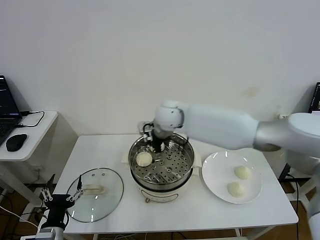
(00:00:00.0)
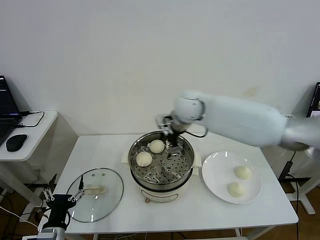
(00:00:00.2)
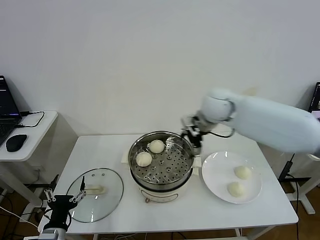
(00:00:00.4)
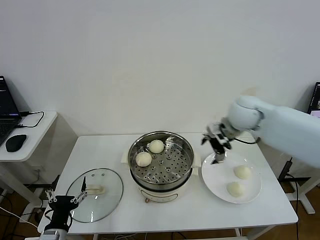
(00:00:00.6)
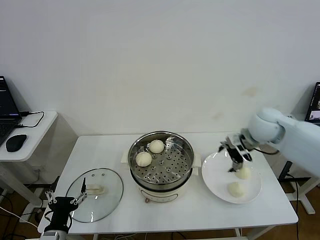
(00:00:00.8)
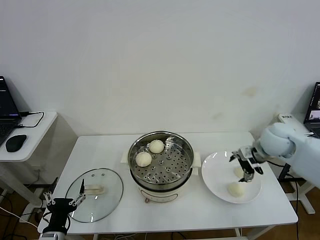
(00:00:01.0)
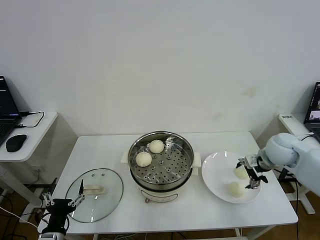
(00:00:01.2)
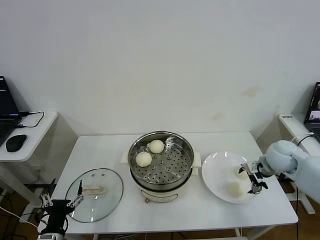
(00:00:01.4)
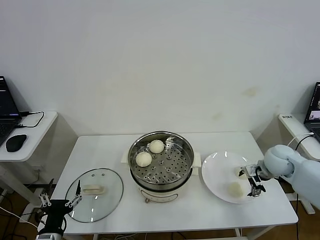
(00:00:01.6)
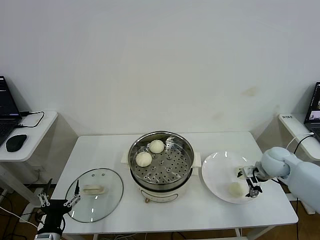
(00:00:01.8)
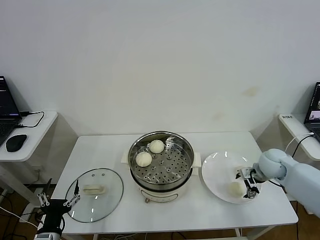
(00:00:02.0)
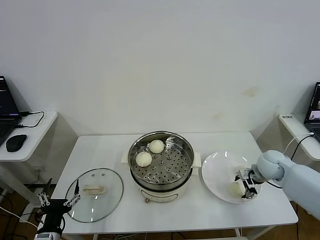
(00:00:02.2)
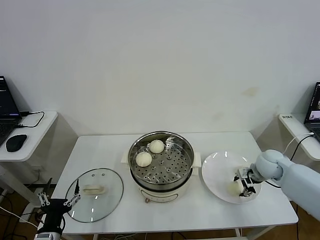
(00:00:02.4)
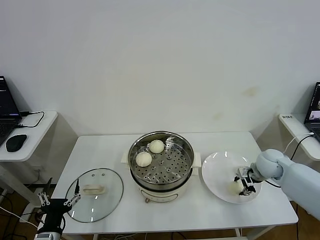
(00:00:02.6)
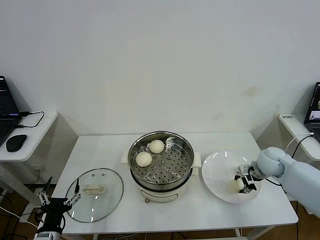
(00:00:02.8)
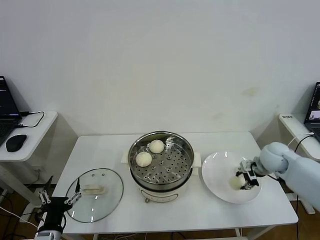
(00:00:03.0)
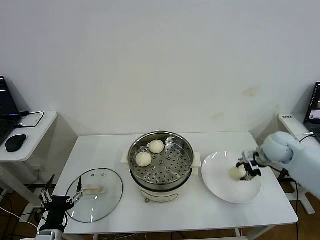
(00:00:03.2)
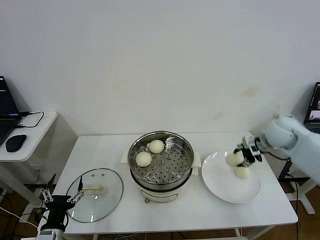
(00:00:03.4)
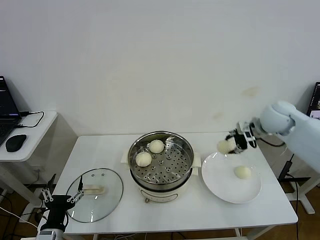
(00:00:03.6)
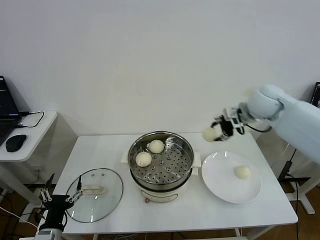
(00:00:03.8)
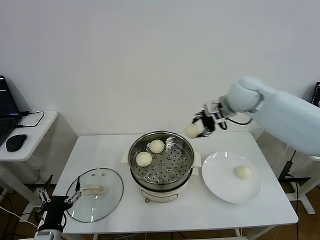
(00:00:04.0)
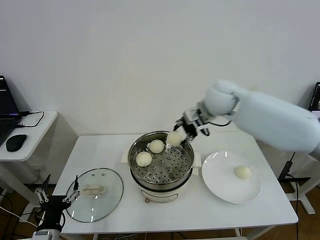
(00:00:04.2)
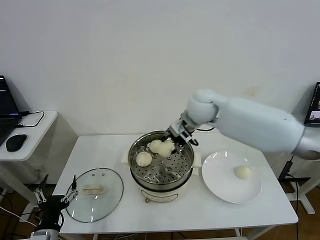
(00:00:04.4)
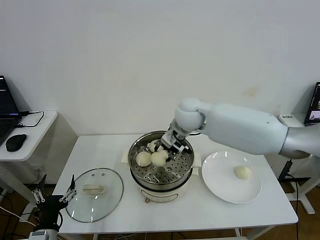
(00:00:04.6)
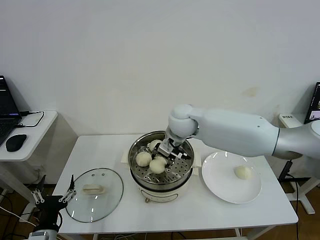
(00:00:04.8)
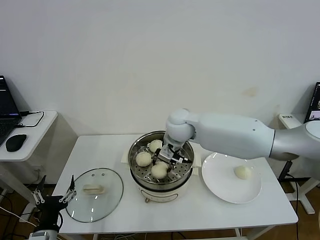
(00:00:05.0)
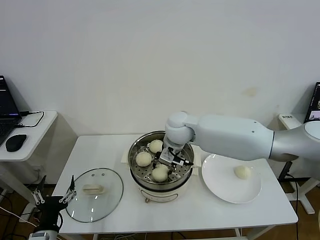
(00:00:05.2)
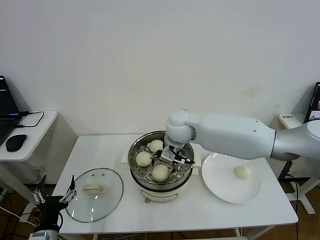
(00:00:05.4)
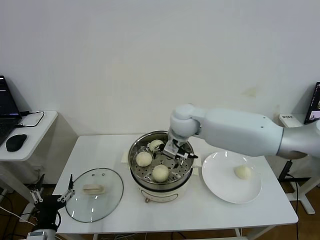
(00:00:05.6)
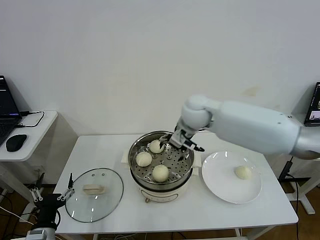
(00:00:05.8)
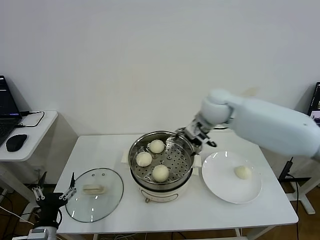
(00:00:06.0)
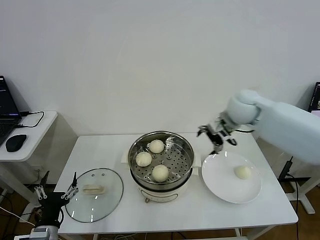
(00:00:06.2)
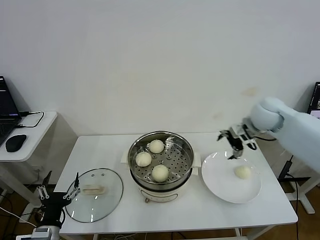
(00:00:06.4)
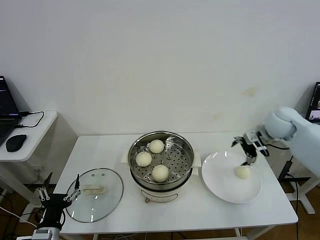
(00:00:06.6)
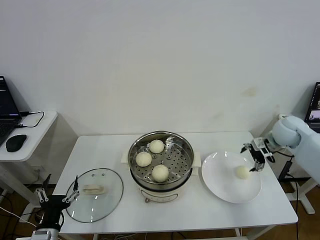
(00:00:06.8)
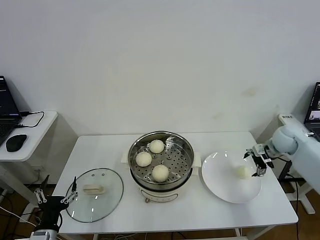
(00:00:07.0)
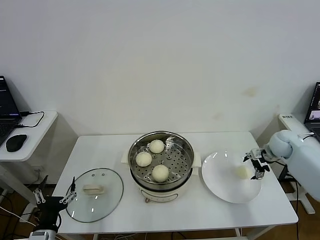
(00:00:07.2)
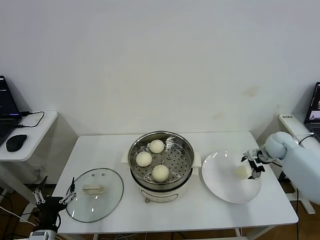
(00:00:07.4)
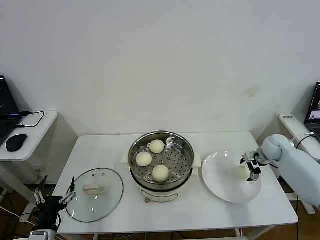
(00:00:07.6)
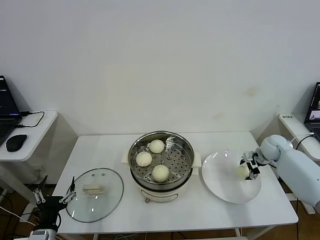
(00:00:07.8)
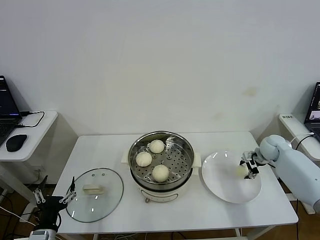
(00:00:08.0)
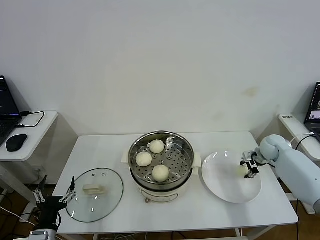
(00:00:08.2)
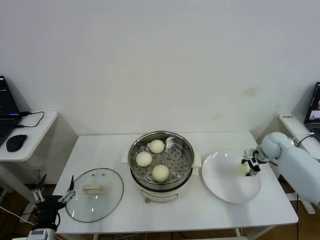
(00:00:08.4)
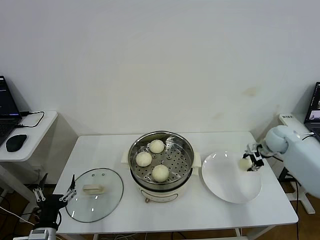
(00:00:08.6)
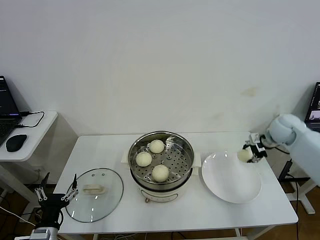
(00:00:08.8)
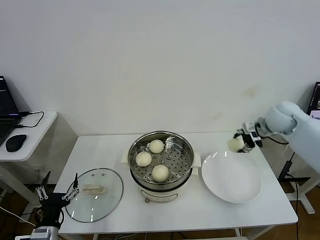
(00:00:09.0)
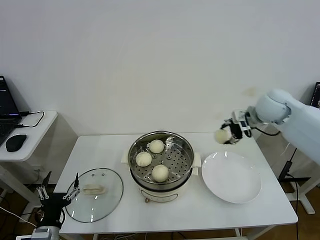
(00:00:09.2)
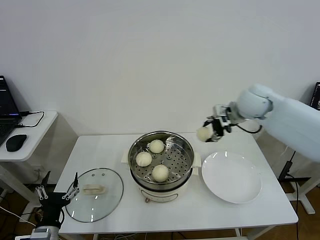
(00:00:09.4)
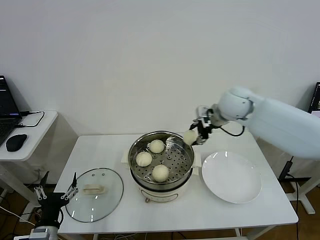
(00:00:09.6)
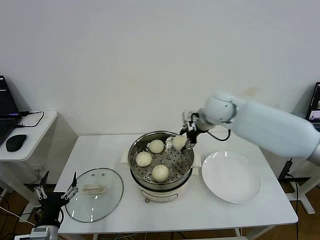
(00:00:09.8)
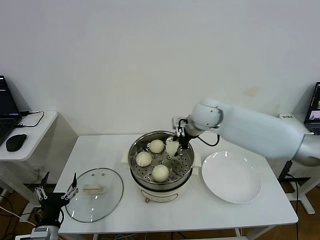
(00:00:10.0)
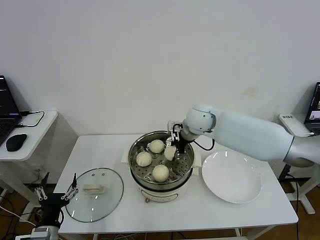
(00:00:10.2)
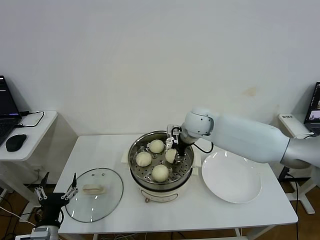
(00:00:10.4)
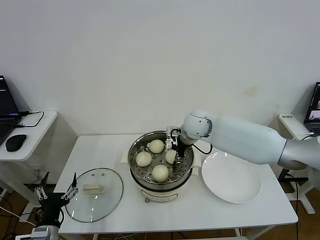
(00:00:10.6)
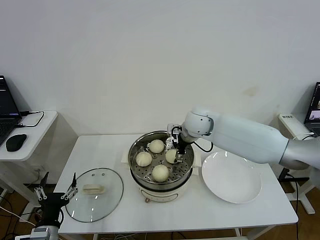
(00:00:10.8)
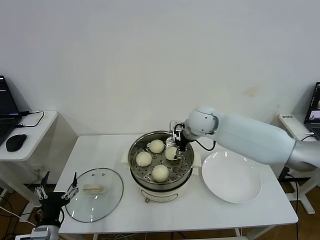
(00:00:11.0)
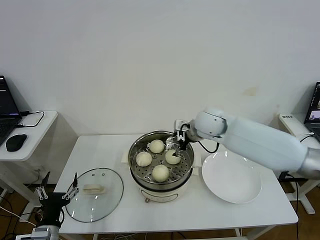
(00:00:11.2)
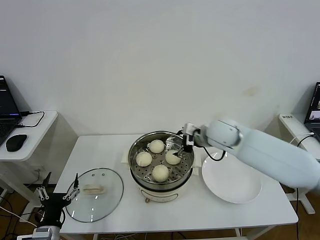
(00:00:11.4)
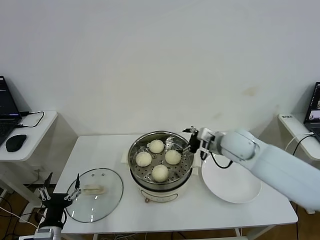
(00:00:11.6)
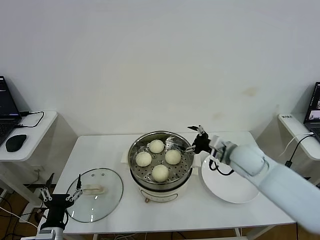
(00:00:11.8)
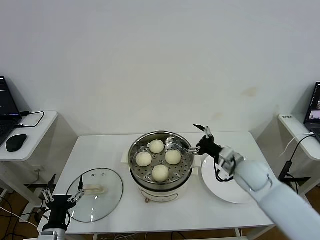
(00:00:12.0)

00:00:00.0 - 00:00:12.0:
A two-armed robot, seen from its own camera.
Step, 00:00:00.0 - 00:00:02.6: Grasp the baozi in the plate with right gripper.
Step, 00:00:02.8 - 00:00:05.2: Place the baozi on the steamer with right gripper.
Step, 00:00:05.6 - 00:00:08.2: Grasp the baozi in the plate with right gripper.
Step, 00:00:08.4 - 00:00:10.6: Place the baozi on the steamer with right gripper.
00:00:00.0 - 00:00:01.6: The right gripper travels to the right and downward by some 40 cm.
00:00:01.6 - 00:00:03.0: The right gripper closes its fingers.
00:00:03.0 - 00:00:04.4: The right gripper shifts roughly 30 cm to the left and upward.
00:00:04.4 - 00:00:06.0: The right gripper moves to the right, roughly 5 cm, and opens up.
00:00:06.0 - 00:00:07.6: The right gripper shifts approximately 35 cm to the right and downward.
00:00:07.6 - 00:00:09.0: The right gripper is displaced upward by some 15 cm, and closes up.
00:00:09.0 - 00:00:10.4: The right gripper is displaced to the left by about 25 cm.
00:00:10.4 - 00:00:12.0: The right gripper heads to the right, backward and downward, covering some 25 cm, and opens up.

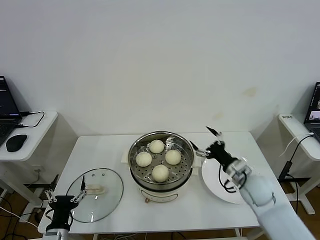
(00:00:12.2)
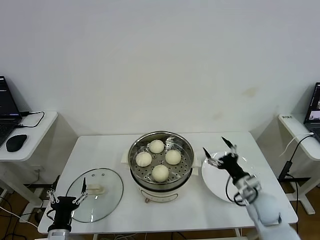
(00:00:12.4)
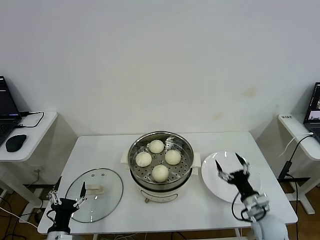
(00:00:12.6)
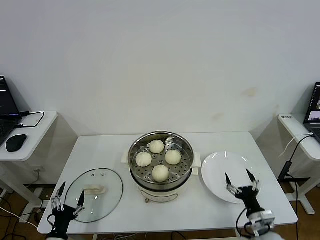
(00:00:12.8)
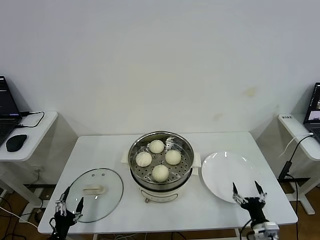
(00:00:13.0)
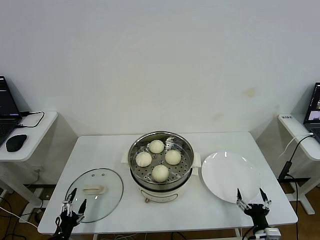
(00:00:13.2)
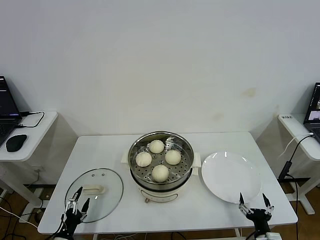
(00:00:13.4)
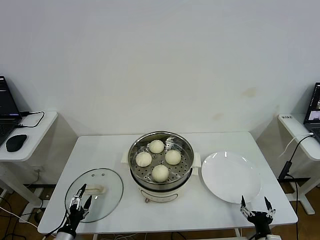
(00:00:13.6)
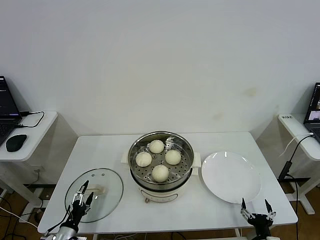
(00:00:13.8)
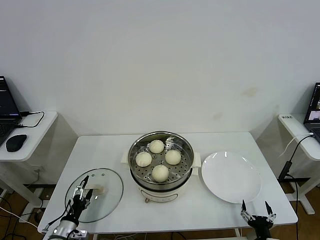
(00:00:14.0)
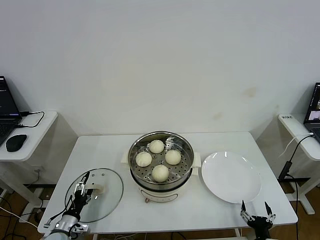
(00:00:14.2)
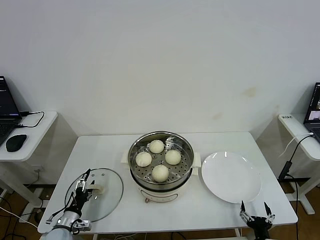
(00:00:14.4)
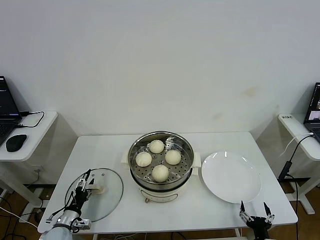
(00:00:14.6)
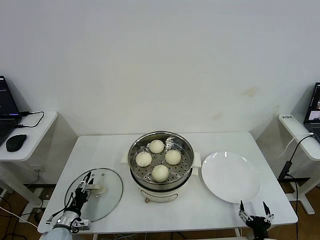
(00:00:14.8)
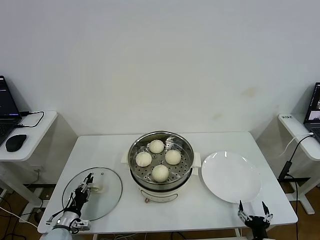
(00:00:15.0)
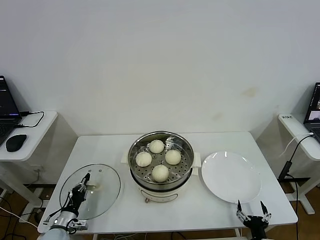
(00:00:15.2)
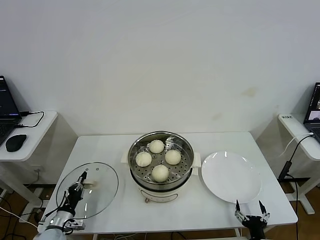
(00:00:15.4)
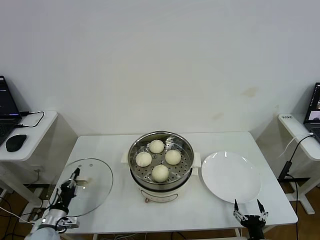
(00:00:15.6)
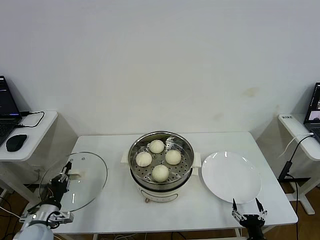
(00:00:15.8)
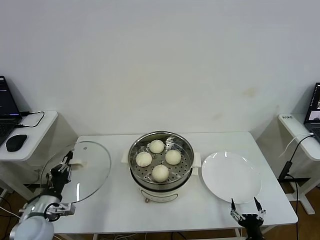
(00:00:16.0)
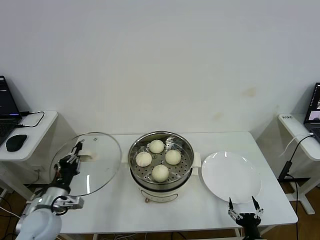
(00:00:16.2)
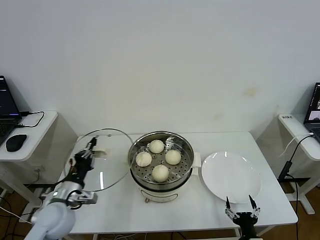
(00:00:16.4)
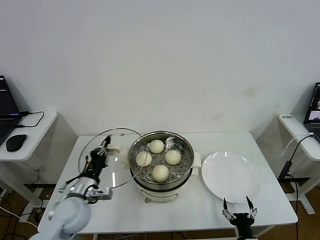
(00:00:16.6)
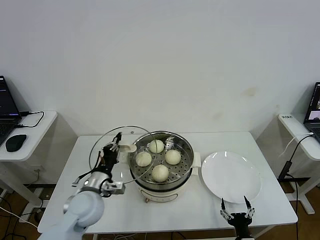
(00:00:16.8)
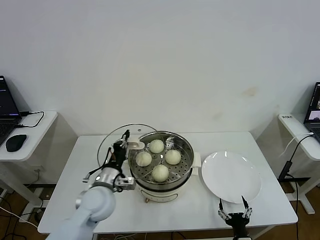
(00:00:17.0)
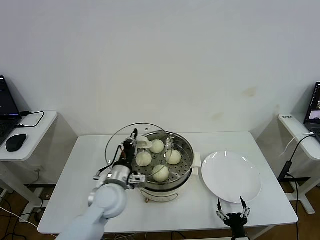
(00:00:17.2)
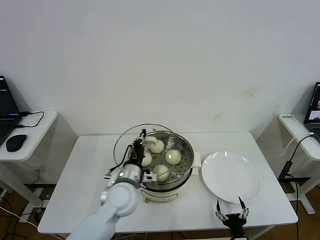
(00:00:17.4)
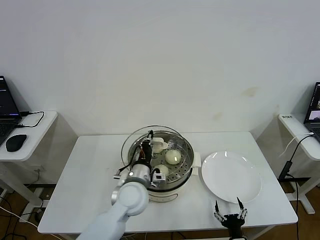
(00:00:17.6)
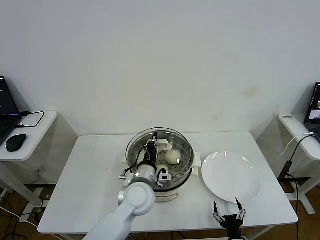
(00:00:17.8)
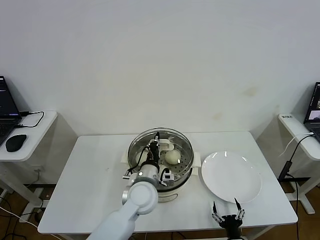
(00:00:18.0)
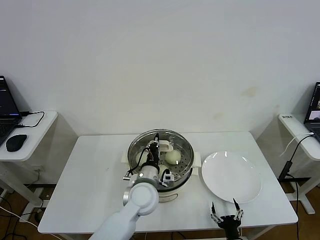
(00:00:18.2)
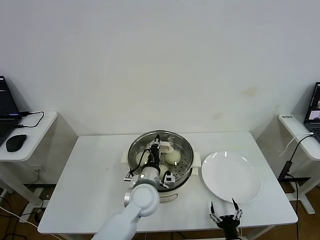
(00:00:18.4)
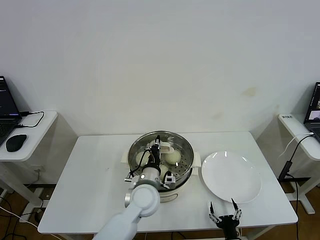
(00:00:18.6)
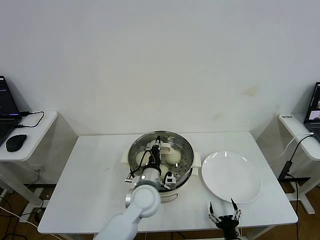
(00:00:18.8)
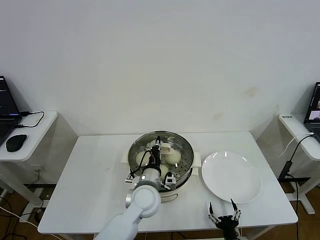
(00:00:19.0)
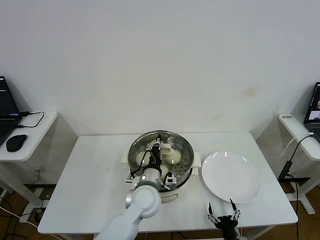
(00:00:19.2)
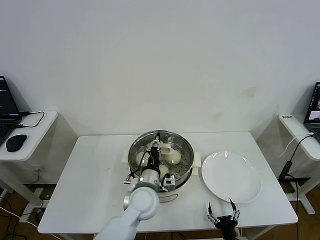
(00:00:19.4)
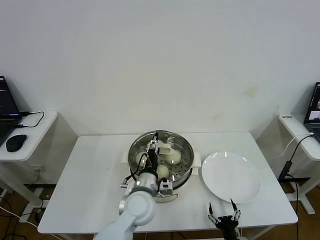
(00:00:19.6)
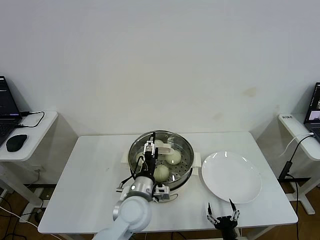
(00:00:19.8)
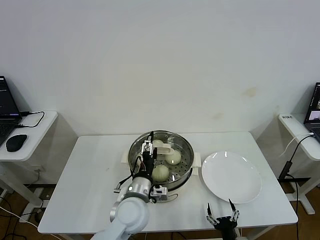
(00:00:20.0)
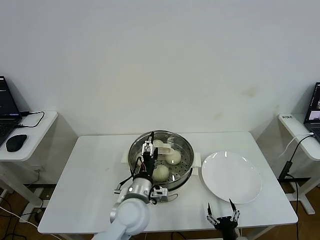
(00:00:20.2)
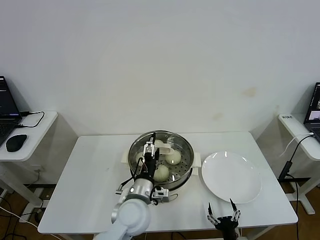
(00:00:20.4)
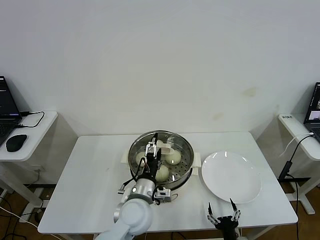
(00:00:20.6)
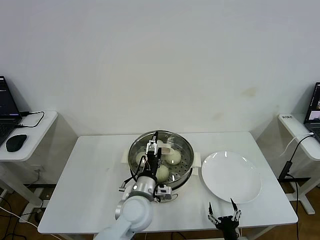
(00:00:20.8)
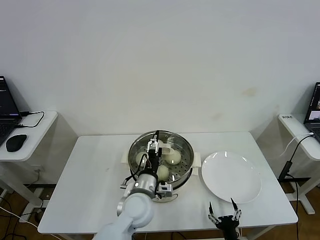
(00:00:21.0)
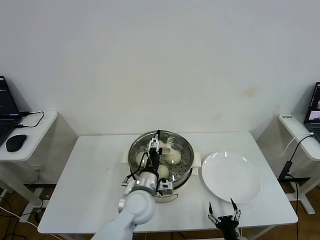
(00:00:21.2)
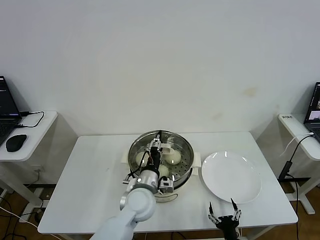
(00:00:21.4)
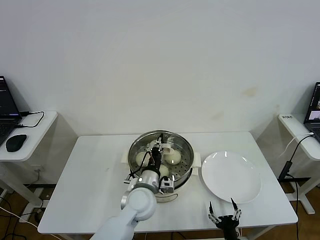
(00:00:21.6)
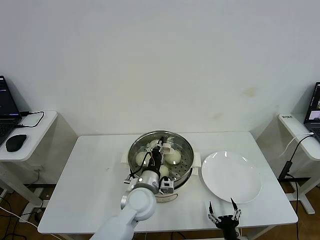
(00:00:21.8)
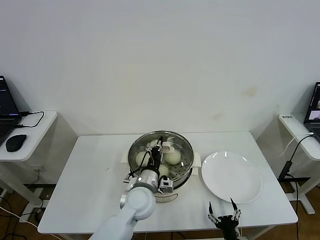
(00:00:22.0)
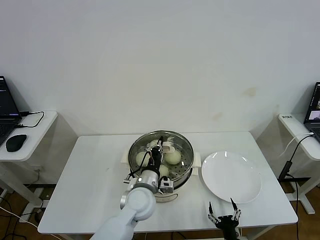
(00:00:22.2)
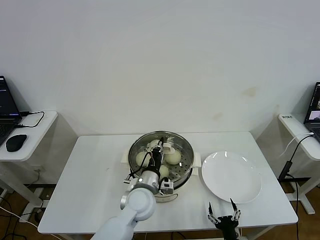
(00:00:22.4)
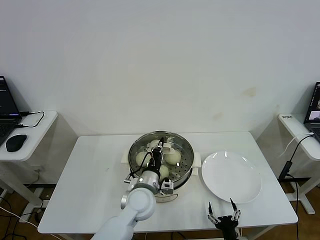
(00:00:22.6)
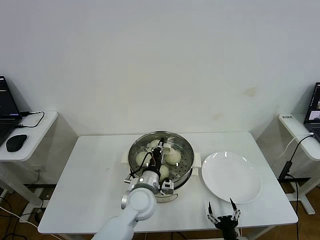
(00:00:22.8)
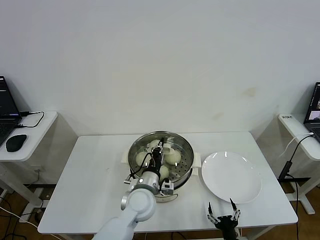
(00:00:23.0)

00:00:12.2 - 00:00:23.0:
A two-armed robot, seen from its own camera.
Step, 00:00:12.2 - 00:00:15.2: Grasp the pot lid with left gripper.
Step, 00:00:15.4 - 00:00:19.2: Place the pot lid on the steamer with left gripper.
00:00:12.2 - 00:00:13.8: The right gripper shifts approximately 25 cm backward and downward. The left gripper is displaced downward and to the left by about 10 cm.
00:00:13.8 - 00:00:15.2: The left gripper travels forward by roughly 5 cm, and closes its fingers.
00:00:15.2 - 00:00:16.8: The right gripper heads to the left, covering roughly 5 cm. Meanwhile the left gripper moves upward and to the right, roughly 25 cm.
00:00:16.8 - 00:00:18.4: The left gripper is displaced to the right by approximately 15 cm.
00:00:18.4 - 00:00:20.0: The left gripper moves some 5 cm, and opens up.
00:00:20.0 - 00:00:21.4: The grippers move only a little.
00:00:21.4 - 00:00:23.0: The left gripper closes up.
